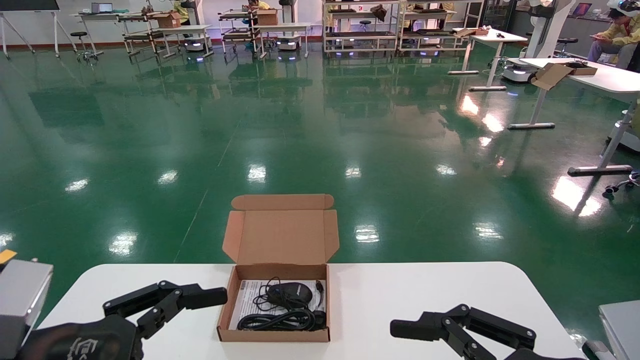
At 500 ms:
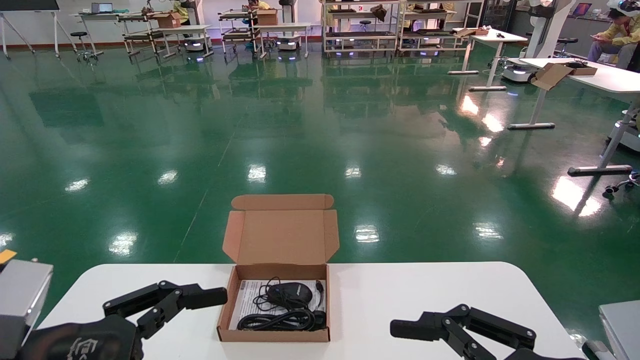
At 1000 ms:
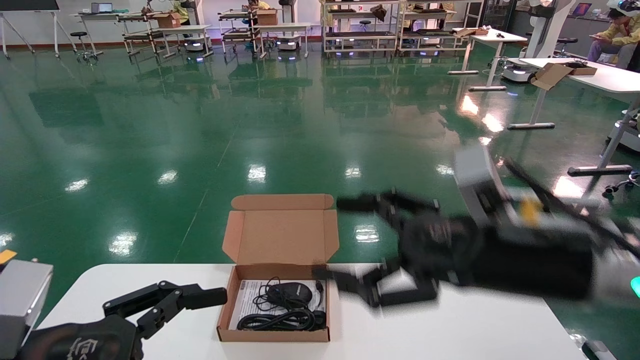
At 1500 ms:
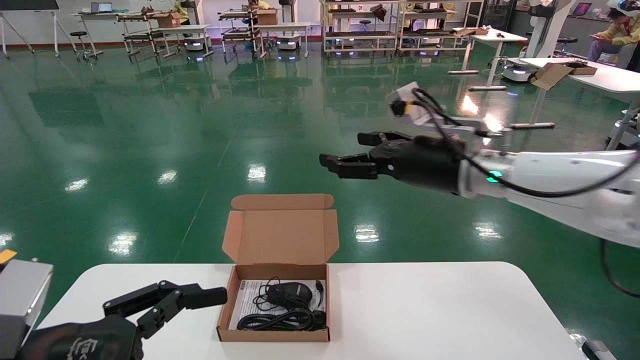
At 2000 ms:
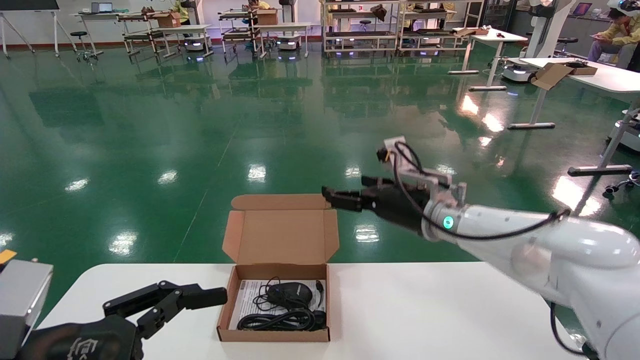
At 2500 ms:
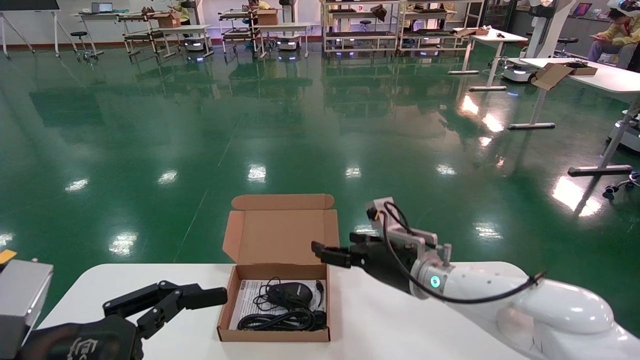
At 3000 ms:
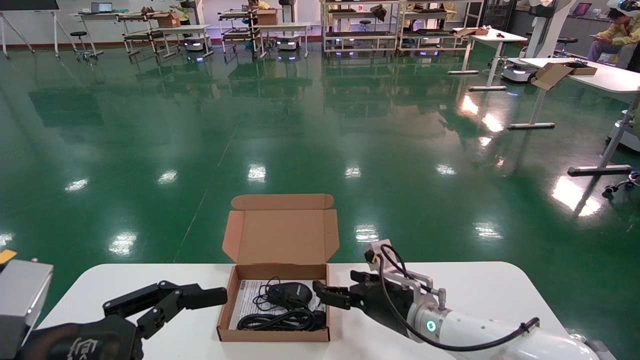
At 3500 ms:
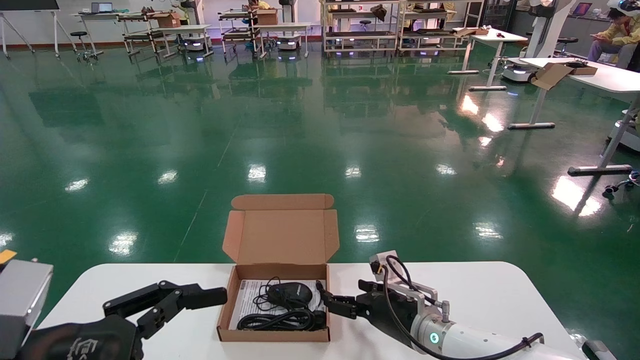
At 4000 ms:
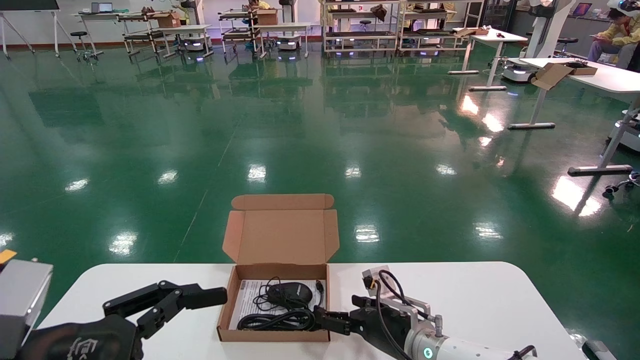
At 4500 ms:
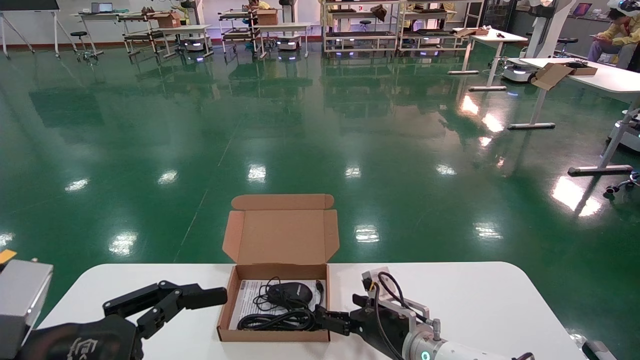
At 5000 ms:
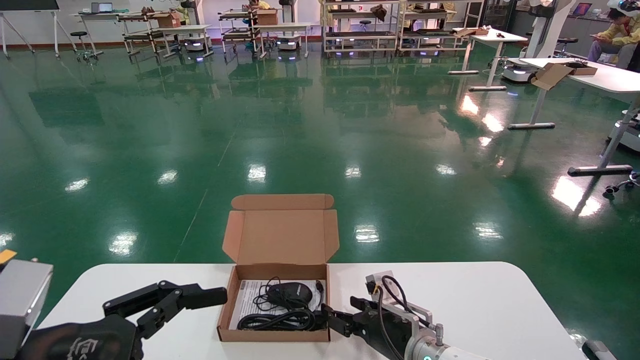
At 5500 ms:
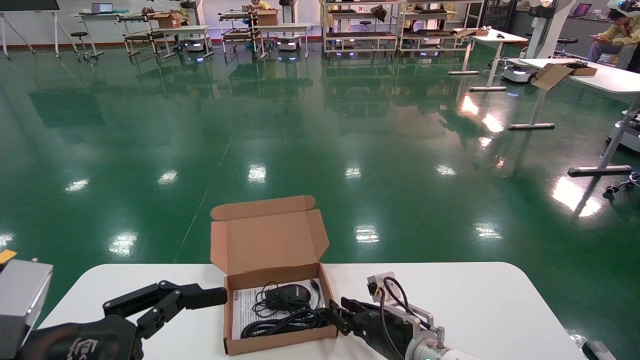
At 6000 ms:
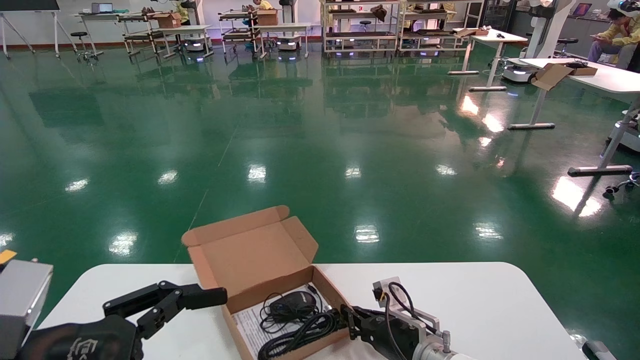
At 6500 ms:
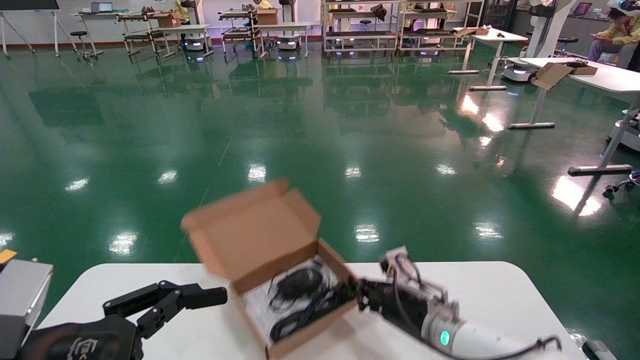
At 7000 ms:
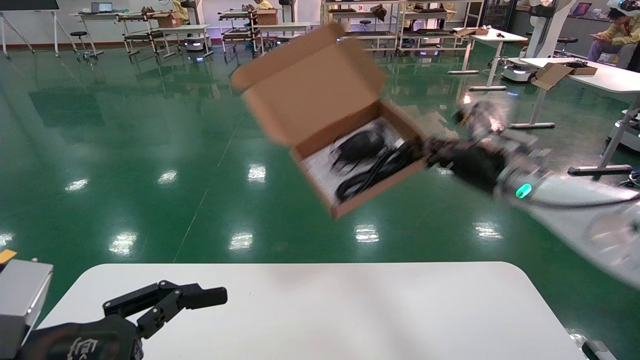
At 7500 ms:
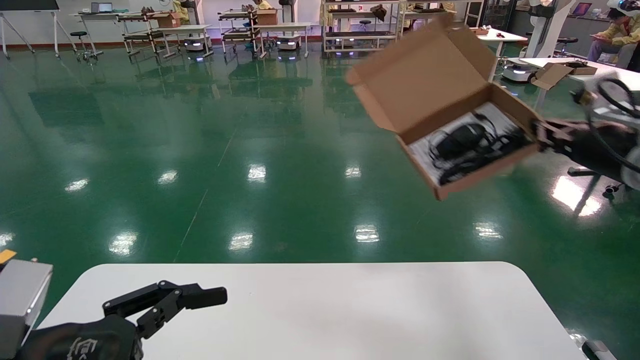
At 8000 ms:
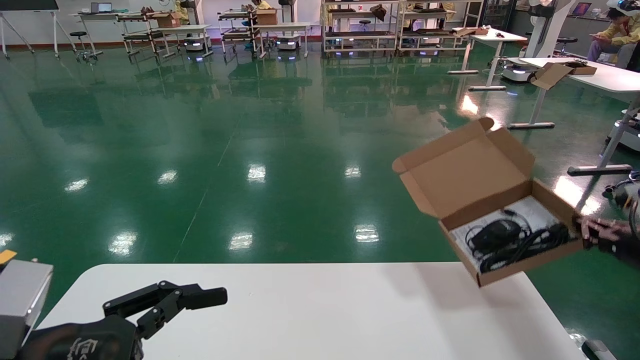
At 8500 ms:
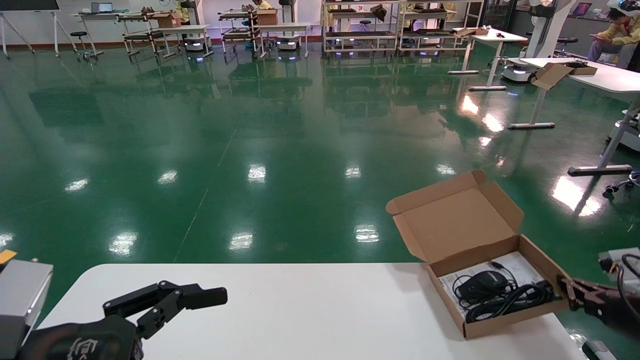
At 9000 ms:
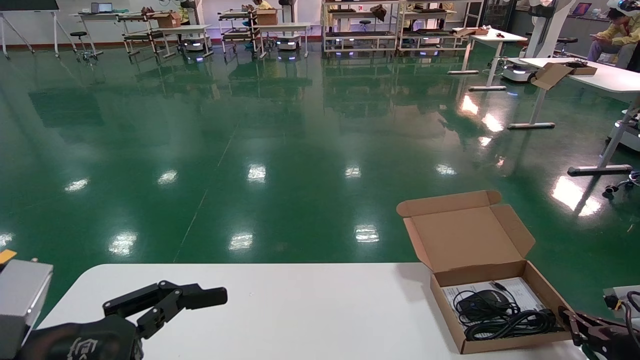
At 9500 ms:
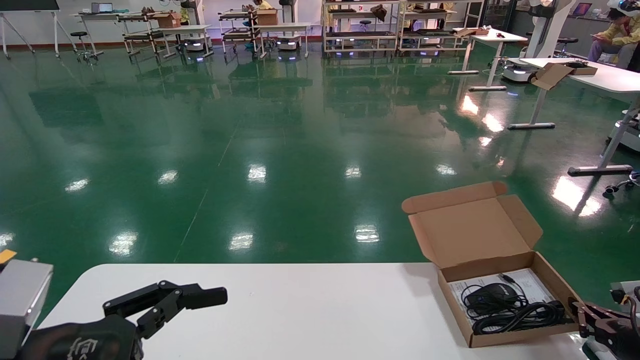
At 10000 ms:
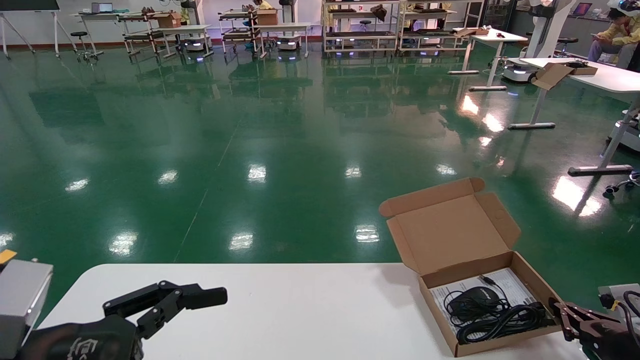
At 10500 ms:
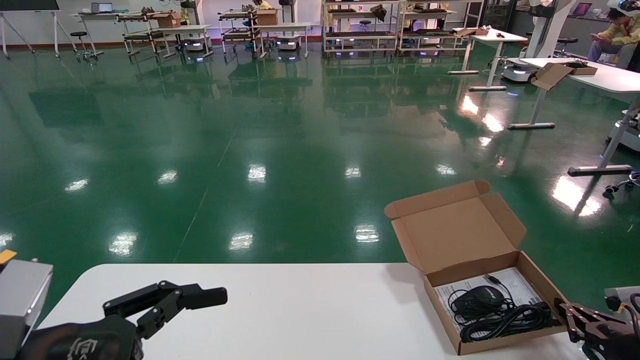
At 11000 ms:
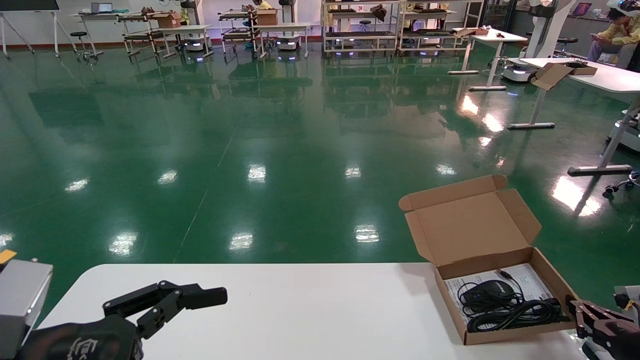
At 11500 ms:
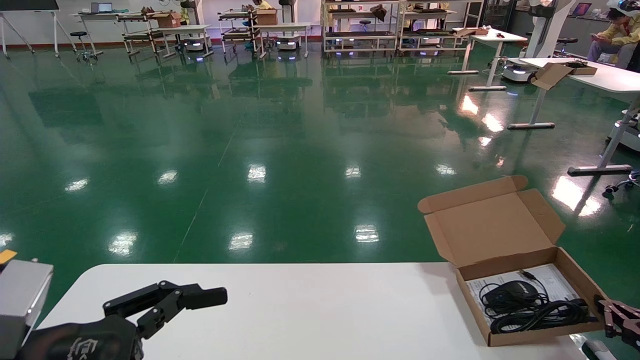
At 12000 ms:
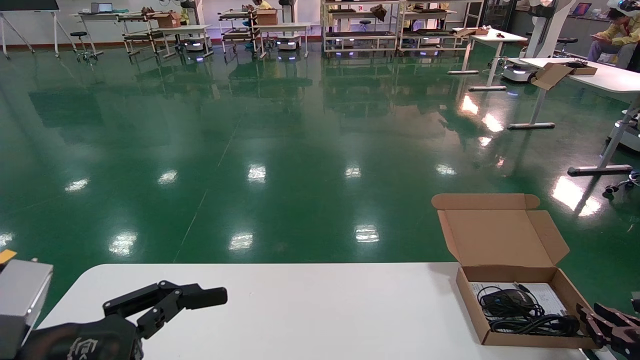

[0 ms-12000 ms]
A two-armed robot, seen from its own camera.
Task of the whole recording: move the position of the storage box with accessories on the table.
Step, 1000 ms to 6500 ms: Grab and pick up the open mouse box from the accessory packaging area.
0 ms to 2000 ms: The right gripper travels forward and to the left by roughly 30 cm.
2000 ms to 4000 ms: The right gripper shifts approximately 20 cm downward.
4000 ms to 6000 ms: The right gripper closes its fingers.
6000 ms to 8000 ms: The right gripper goes about 35 cm to the right and upward.
8000 ms to 10000 ms: The right gripper heads downward, covering roughly 15 cm.
10000 ms to 12000 ms: There are only small adjustments of the grippers.

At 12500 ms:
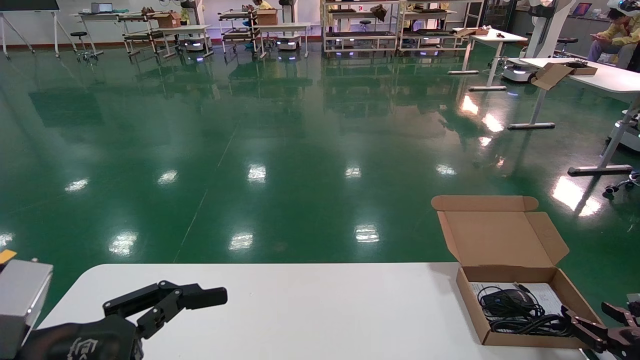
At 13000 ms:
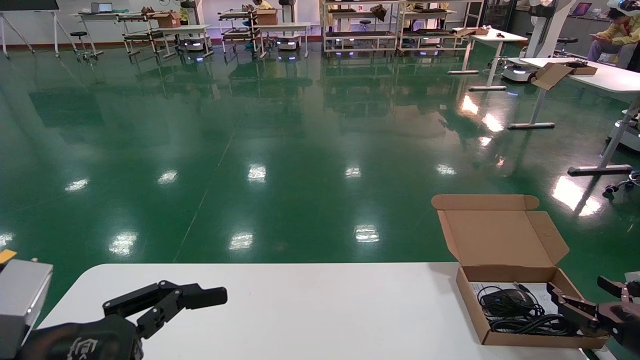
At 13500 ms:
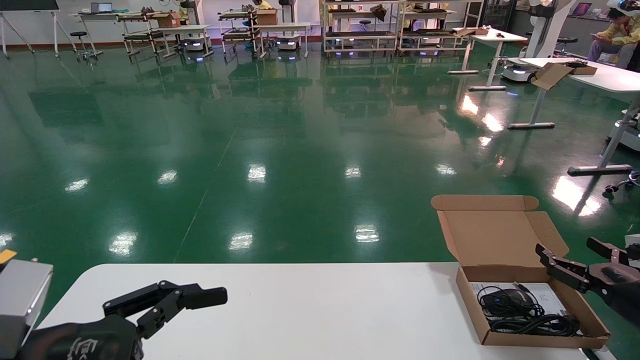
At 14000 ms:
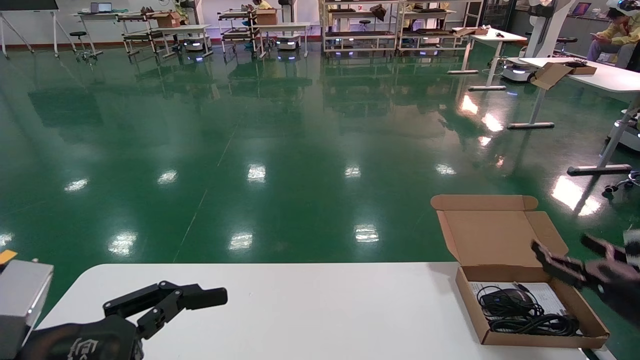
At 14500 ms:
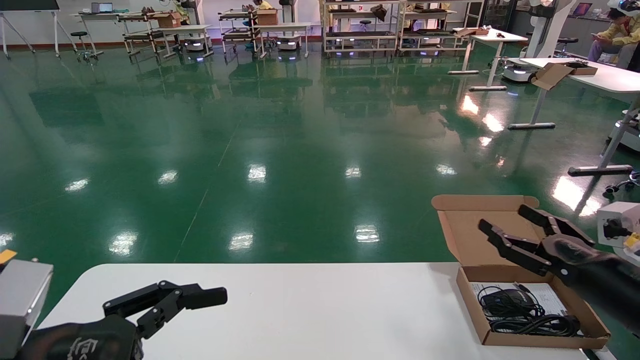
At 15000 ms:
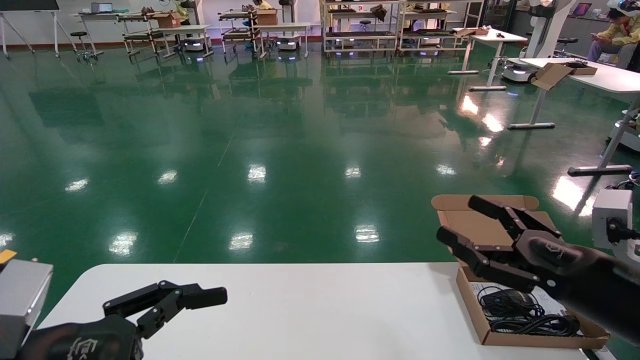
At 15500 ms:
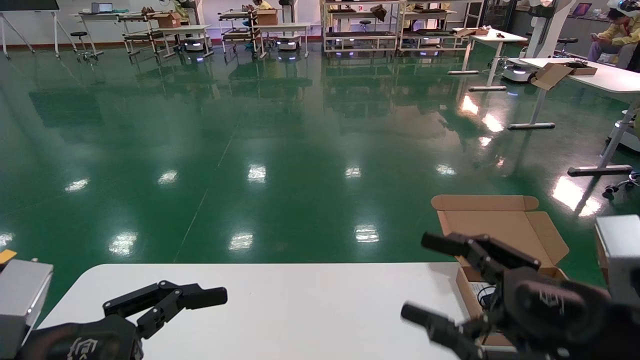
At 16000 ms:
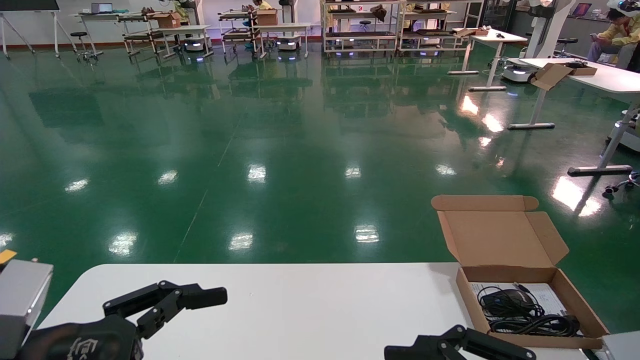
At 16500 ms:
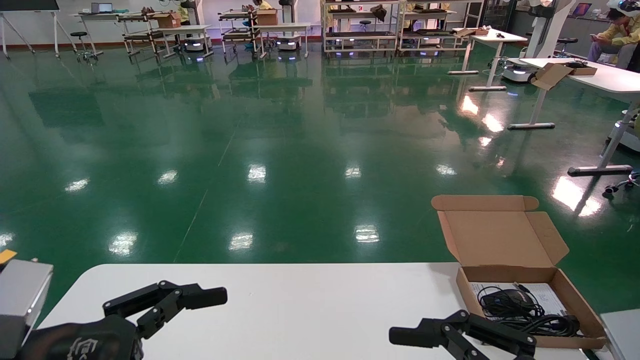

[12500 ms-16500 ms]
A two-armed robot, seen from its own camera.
Task of the whole recording: move the position of the storage box with accessories on the table.
12500 ms to 14500 ms: The right gripper goes about 15 cm upward and to the left, and opens up.
14500 ms to 16500 ms: The right gripper travels backward and to the left by some 25 cm.
